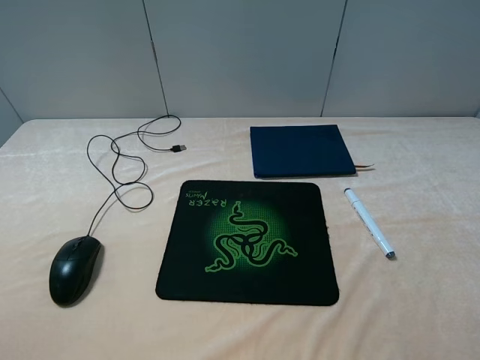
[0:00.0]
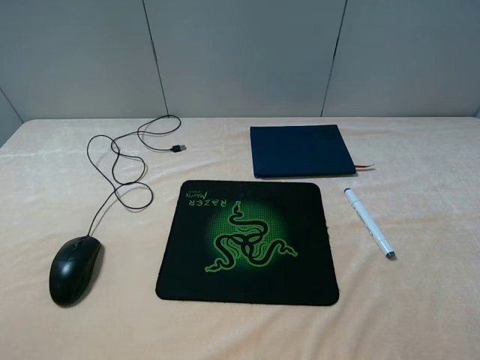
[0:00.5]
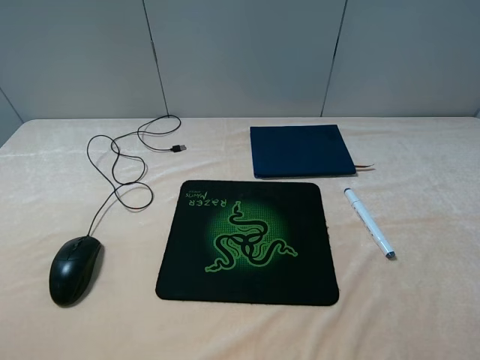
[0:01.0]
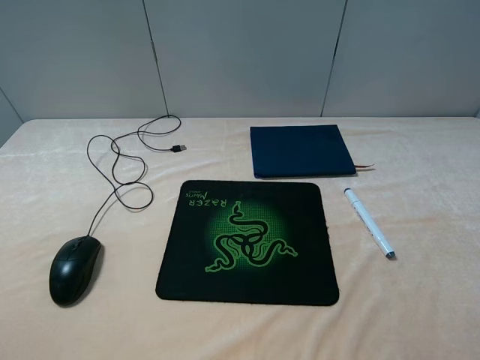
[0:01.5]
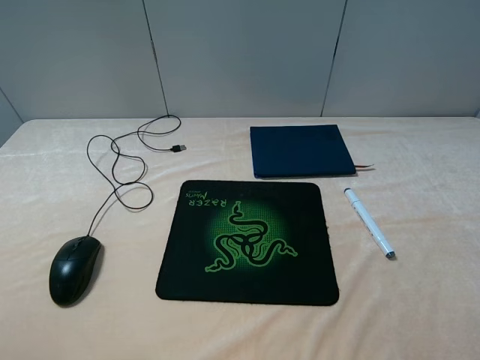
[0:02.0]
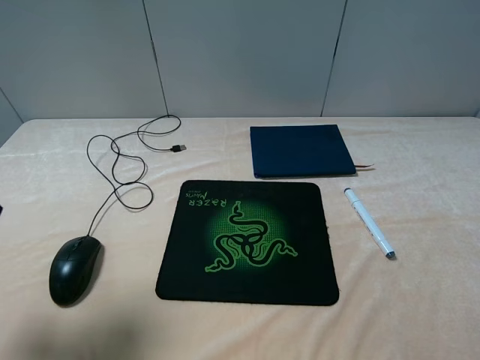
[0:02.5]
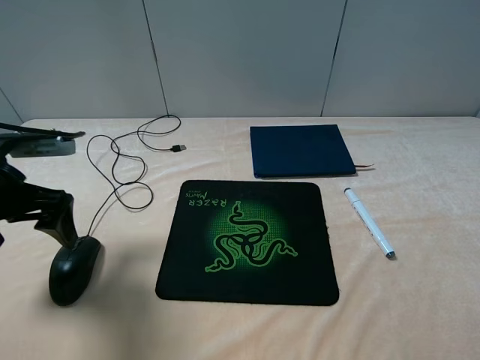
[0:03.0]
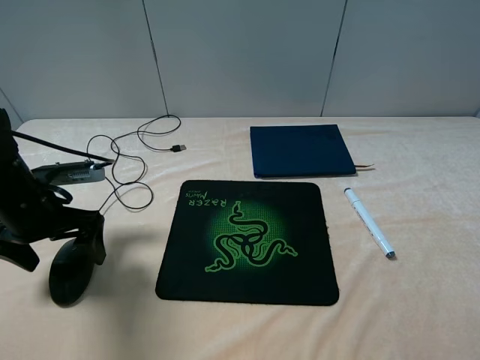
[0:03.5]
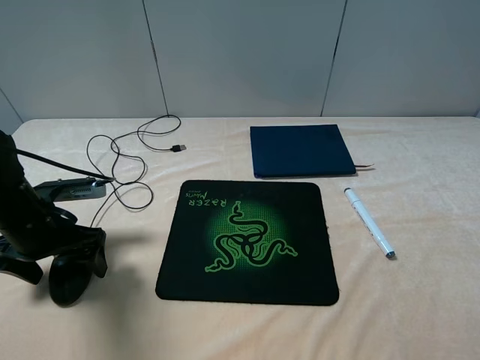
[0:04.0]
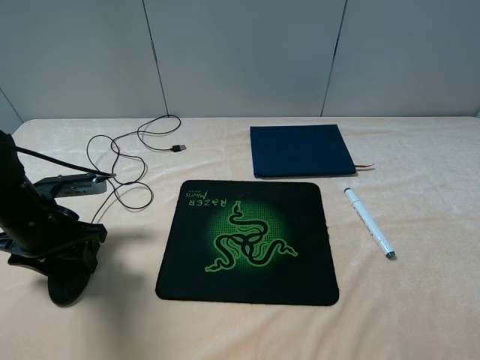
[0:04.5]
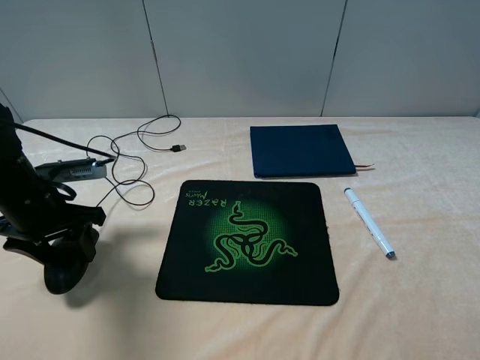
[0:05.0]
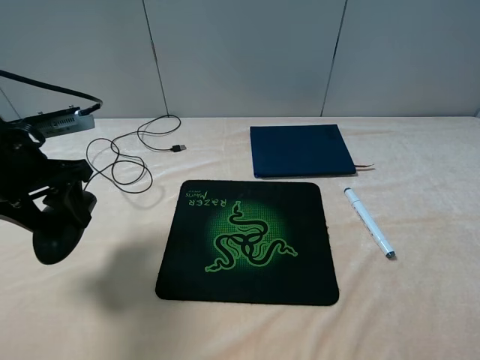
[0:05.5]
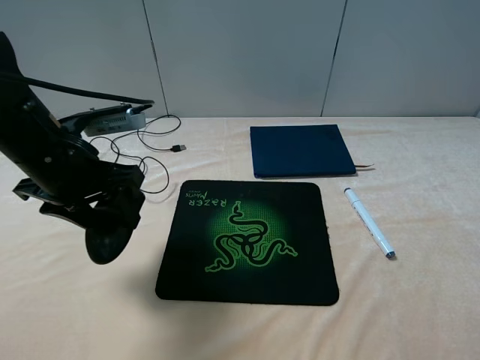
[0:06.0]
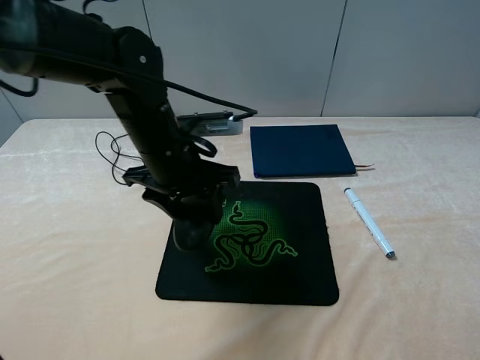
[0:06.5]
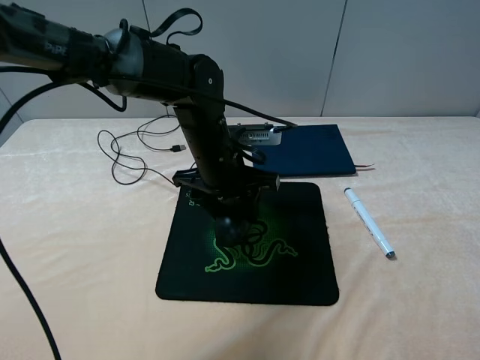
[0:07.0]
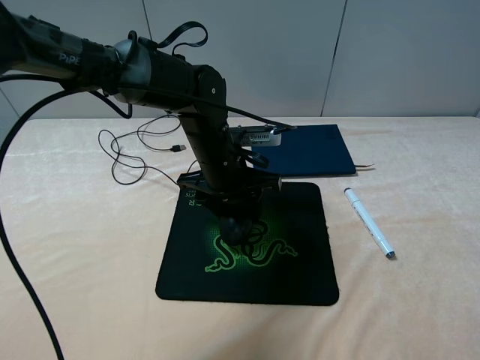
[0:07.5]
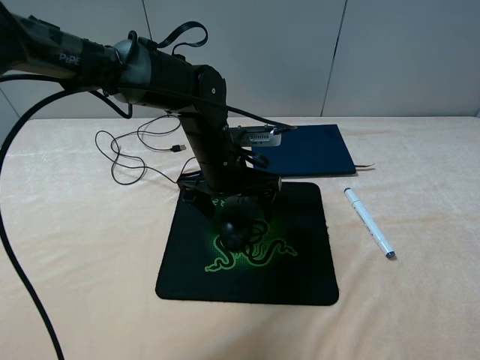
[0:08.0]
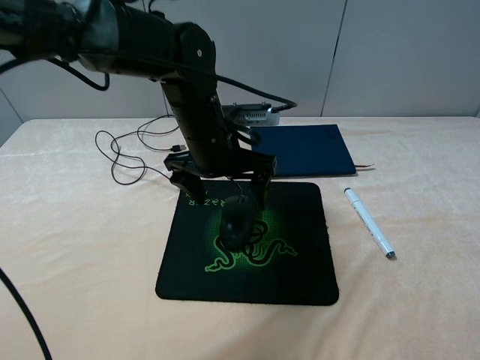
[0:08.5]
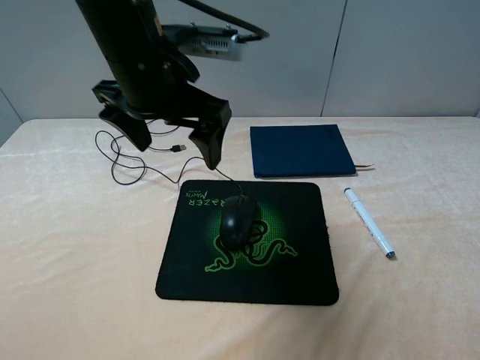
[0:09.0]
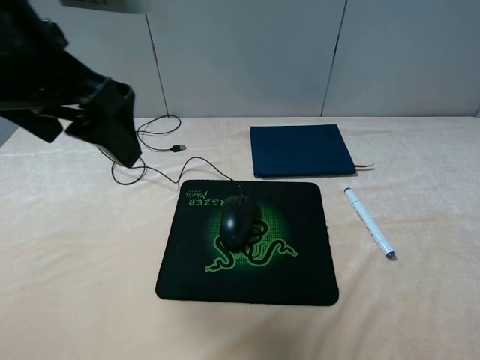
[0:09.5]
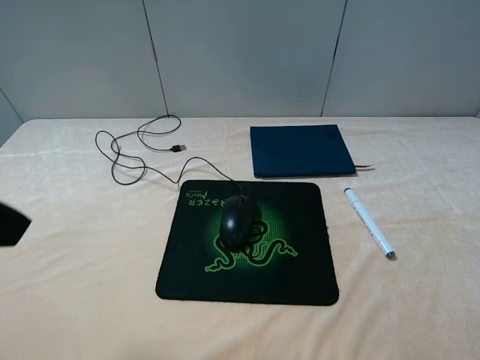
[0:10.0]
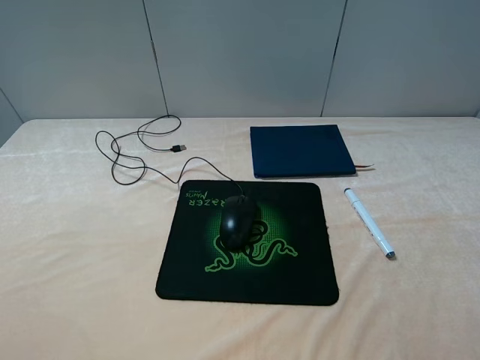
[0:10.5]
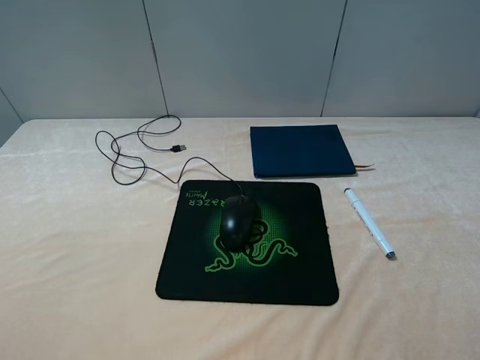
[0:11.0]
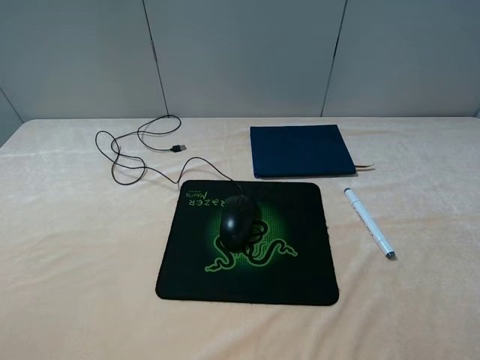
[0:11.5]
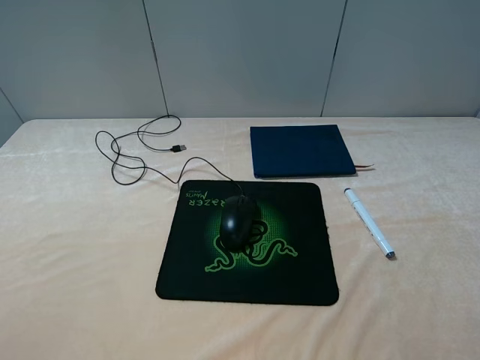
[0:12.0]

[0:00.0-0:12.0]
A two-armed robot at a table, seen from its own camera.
Step, 0:00.0 to 0:04.5: Grasp the mouse with the left gripper.
Step, 0:05.0 to 0:08.5: Place the mouse on the mouse pad with the left gripper.
0:02.0 to 0:04.0: The left gripper heads downward and forward, covering about 30 cm.
0:04.0 to 0:06.0: The left gripper moves upward and to the right, roughly 15 cm, and closes its fingers.
0:06.0 to 0:08.0: The left gripper goes roughly 20 cm to the right, forward and downward, and opens.
0:08.0 to 0:10.0: The left gripper goes about 40 cm backward, upward and to the left.

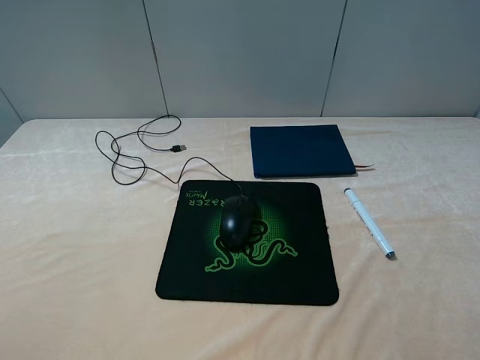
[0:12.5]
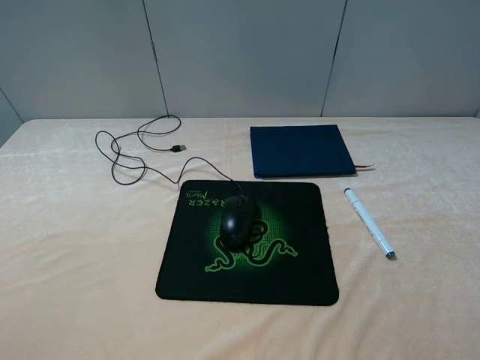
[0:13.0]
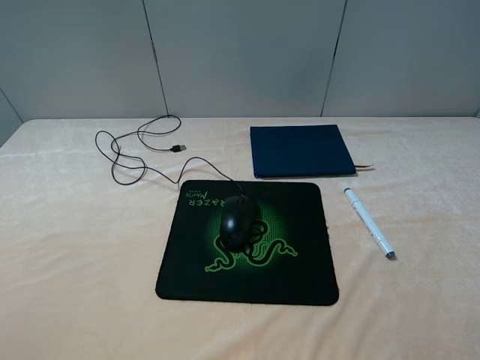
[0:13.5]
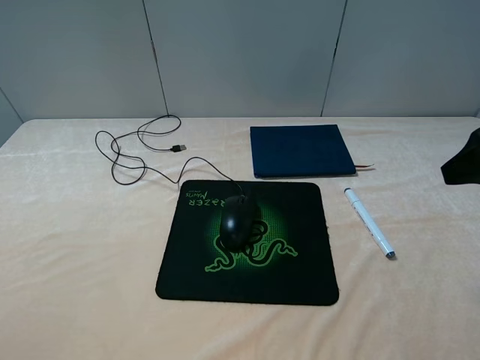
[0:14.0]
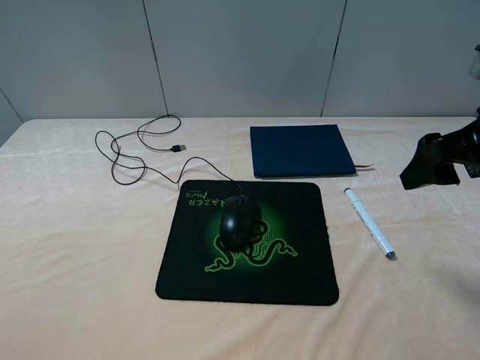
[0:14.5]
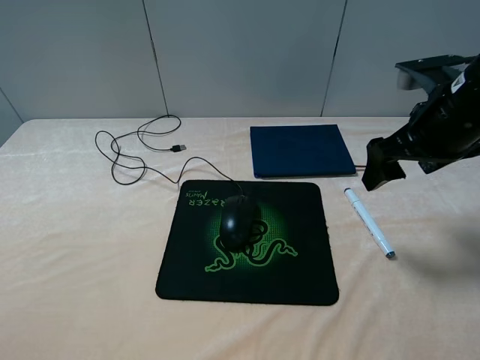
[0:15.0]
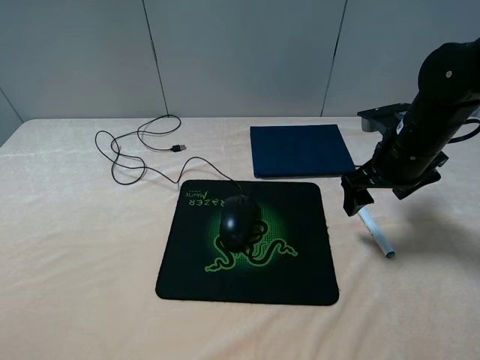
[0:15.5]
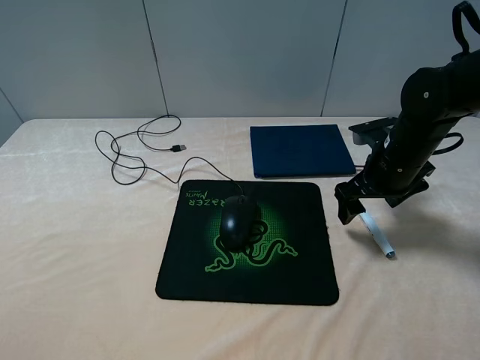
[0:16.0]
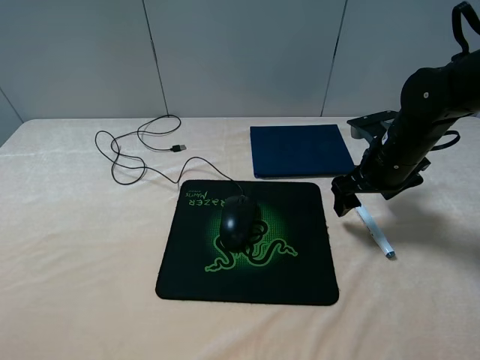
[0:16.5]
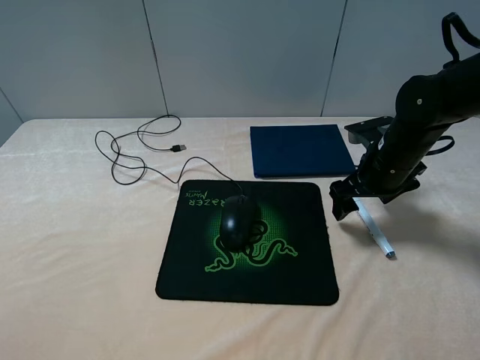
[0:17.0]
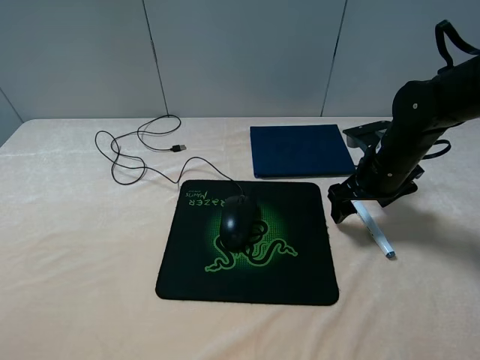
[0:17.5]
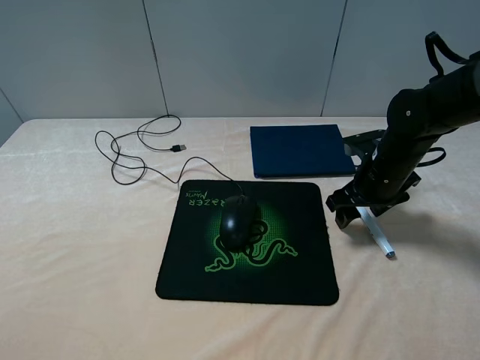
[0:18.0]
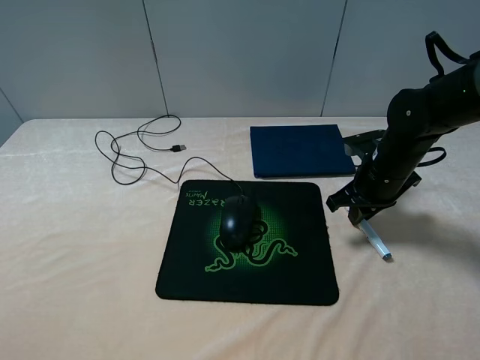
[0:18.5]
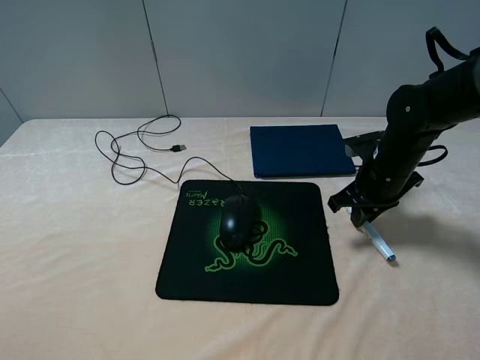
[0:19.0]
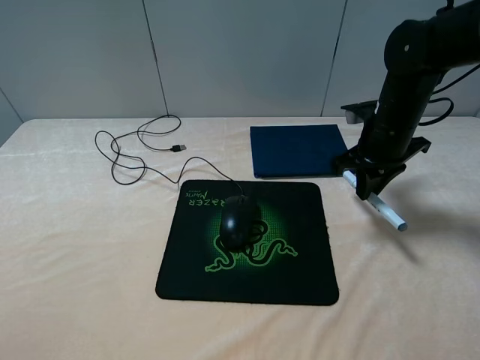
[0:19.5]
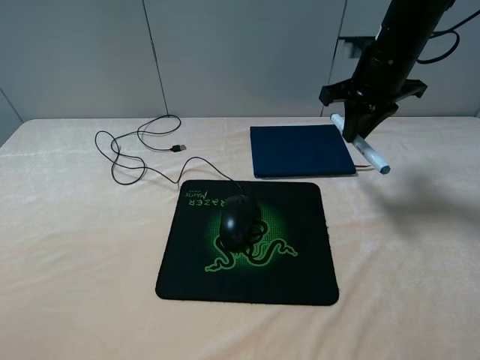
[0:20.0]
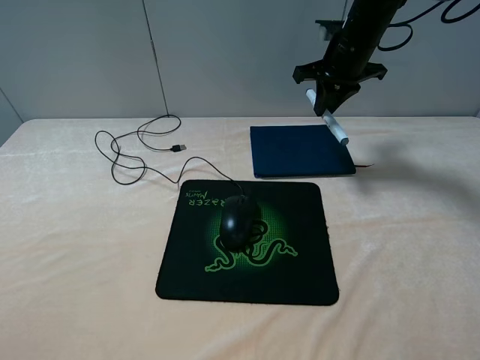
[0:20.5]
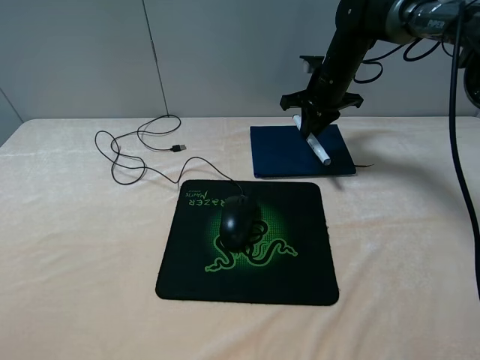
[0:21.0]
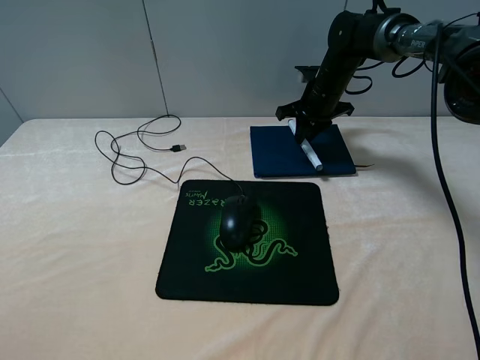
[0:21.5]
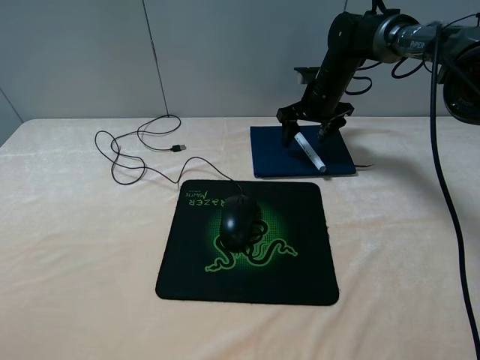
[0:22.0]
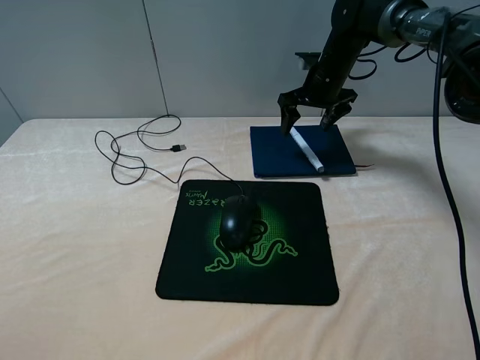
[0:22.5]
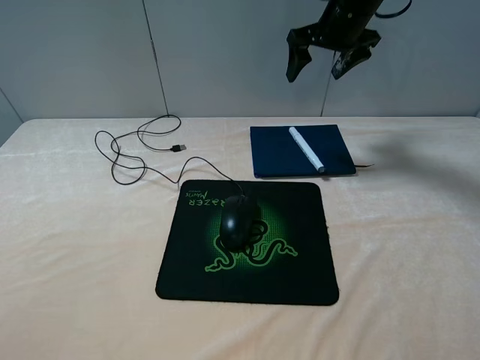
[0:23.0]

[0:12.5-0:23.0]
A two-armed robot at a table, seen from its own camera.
Step, 0:12.5 to 0:18.0: Grasp the marker with the right gripper.
Step, 0:18.5 to 0:22.0: Place the marker on the notebook with the right gripper.
0:12.5 to 0:14.5: The right gripper moves forward, about 20 cm.
0:14.5 to 0:16.5: The right gripper is displaced downward and forward by about 15 cm.
0:16.5 to 0:19.0: The right gripper closes.
0:19.0 to 0:21.0: The right gripper goes about 15 cm forward.
0:21.0 to 0:23.0: The right gripper is displaced upward by approximately 10 cm, and opens up.

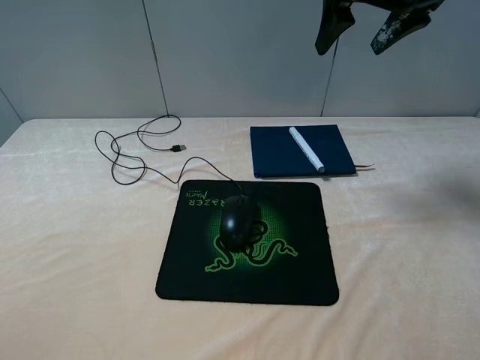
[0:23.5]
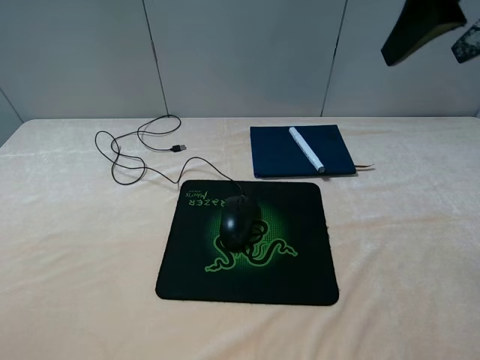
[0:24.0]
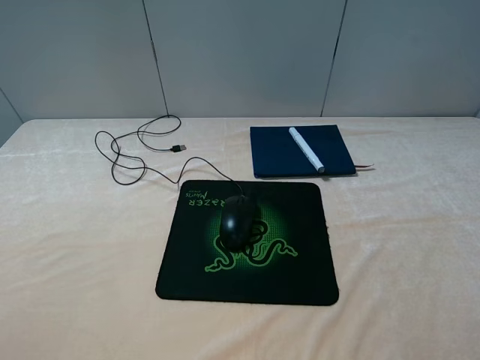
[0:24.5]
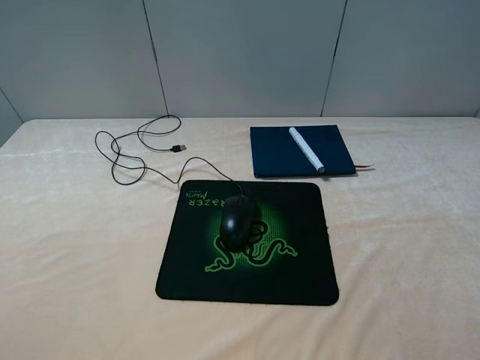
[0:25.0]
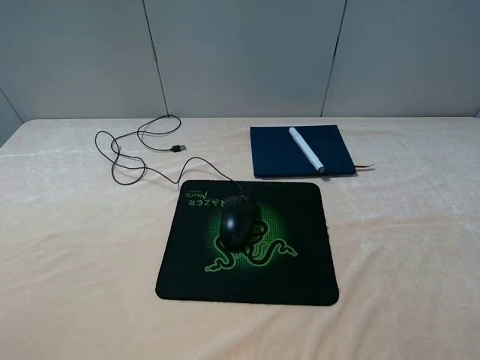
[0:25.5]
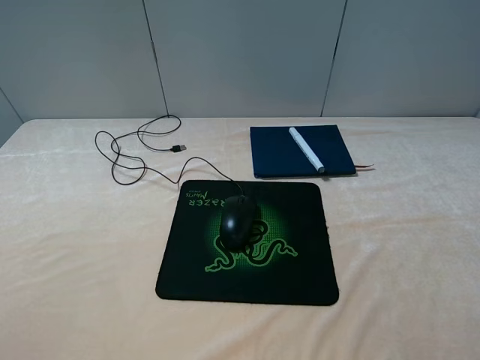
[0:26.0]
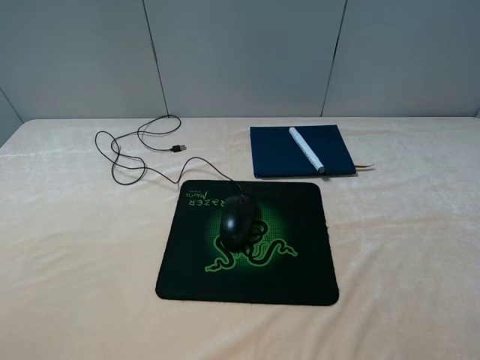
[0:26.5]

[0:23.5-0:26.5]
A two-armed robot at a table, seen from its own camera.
0:23.5 to 0:25.0: The right gripper shifts approximately 35 cm backward.
